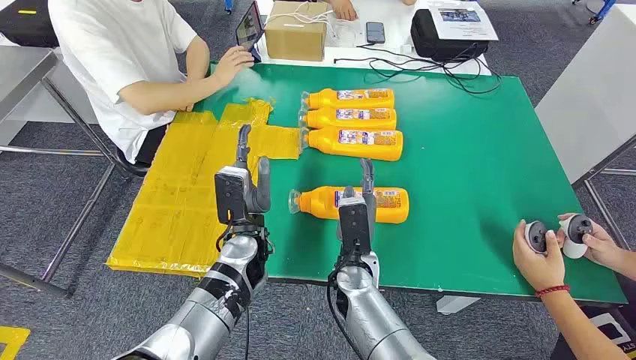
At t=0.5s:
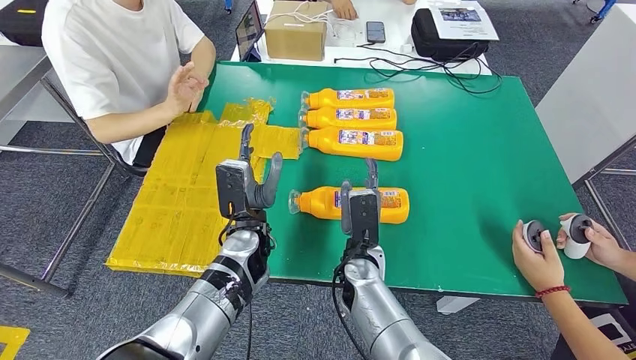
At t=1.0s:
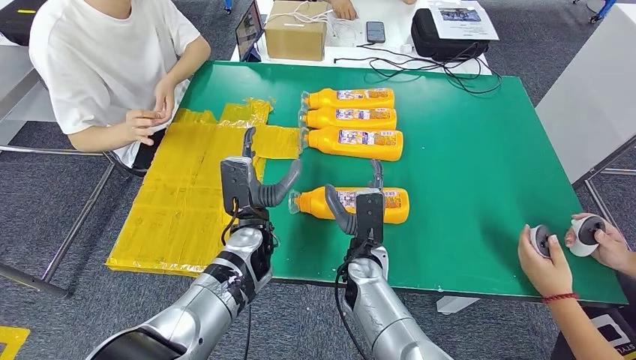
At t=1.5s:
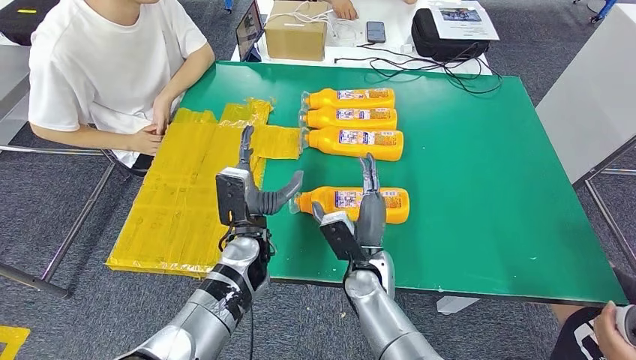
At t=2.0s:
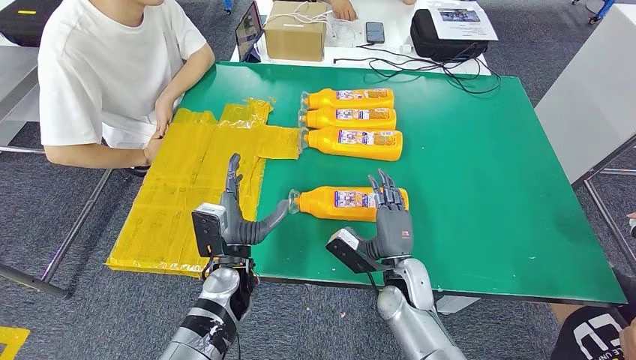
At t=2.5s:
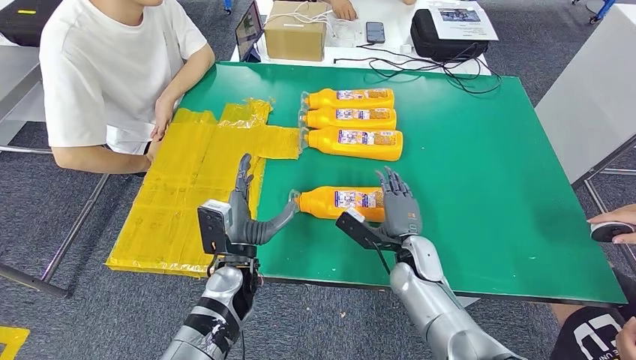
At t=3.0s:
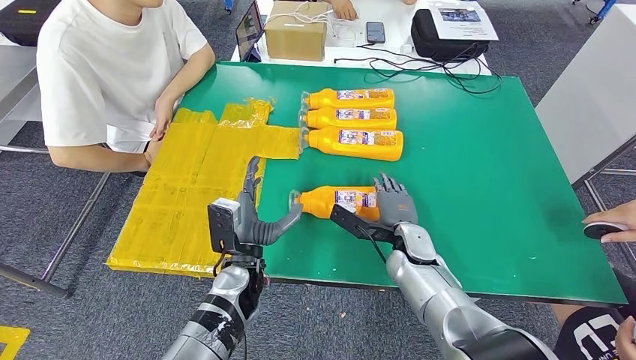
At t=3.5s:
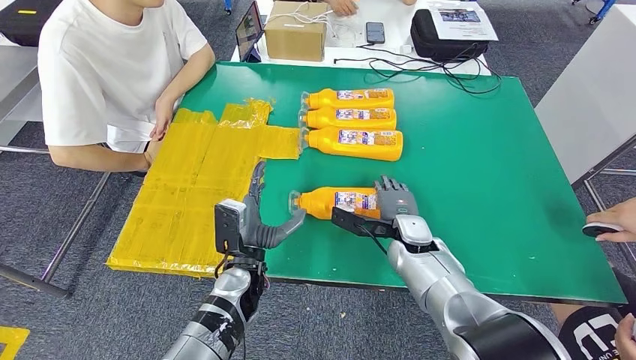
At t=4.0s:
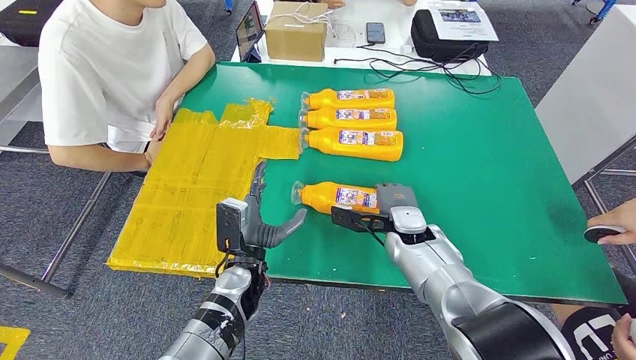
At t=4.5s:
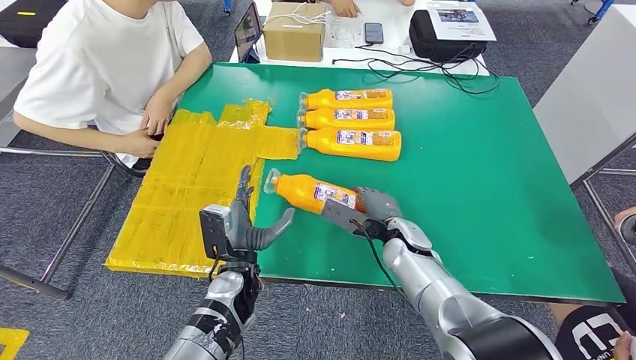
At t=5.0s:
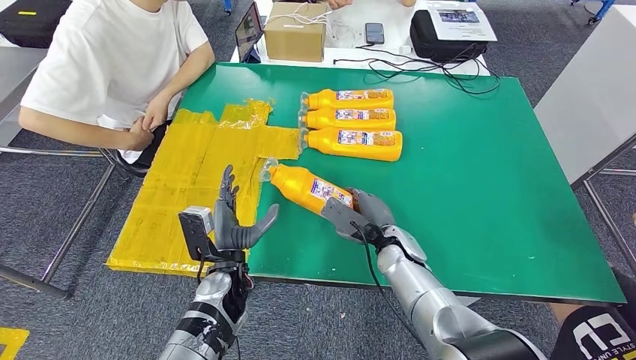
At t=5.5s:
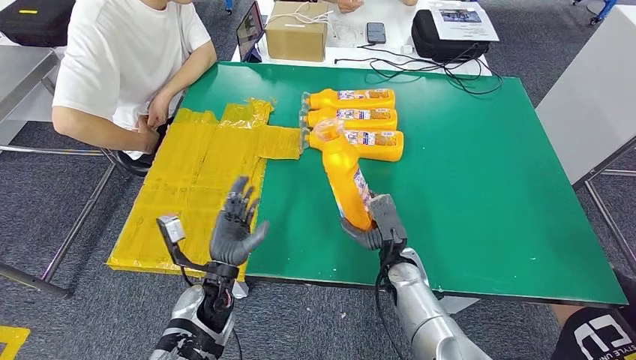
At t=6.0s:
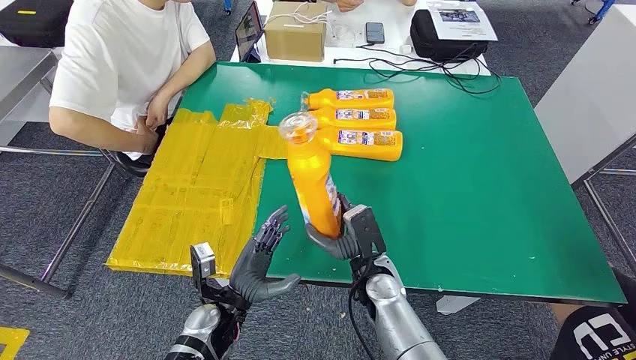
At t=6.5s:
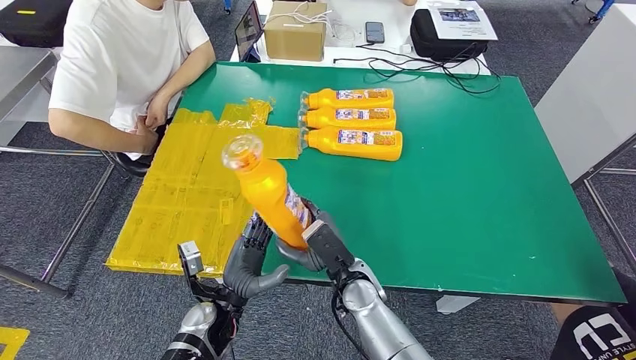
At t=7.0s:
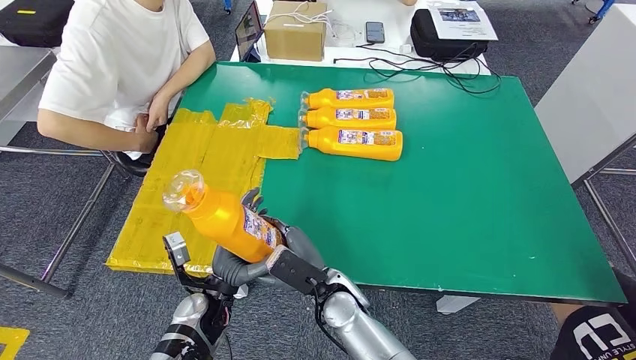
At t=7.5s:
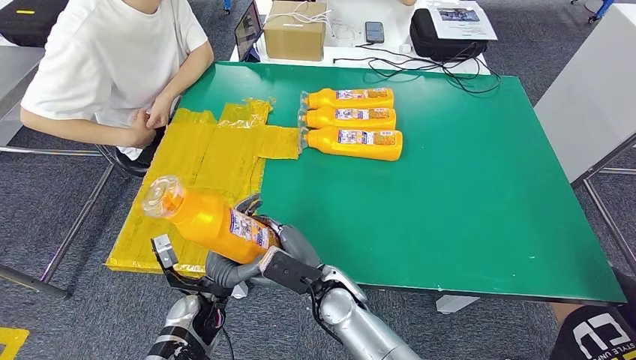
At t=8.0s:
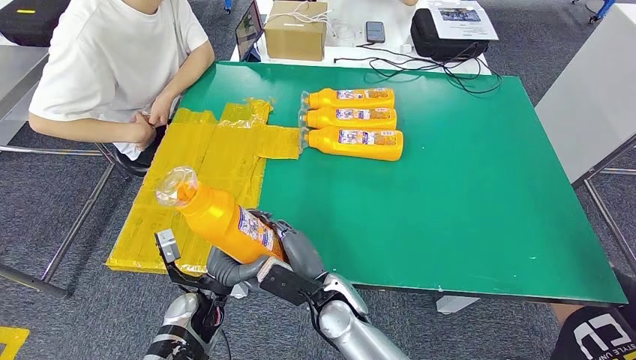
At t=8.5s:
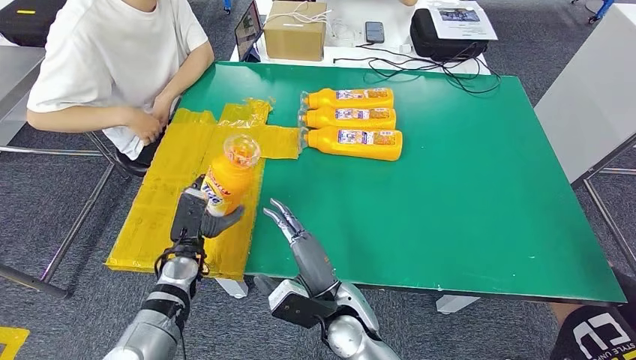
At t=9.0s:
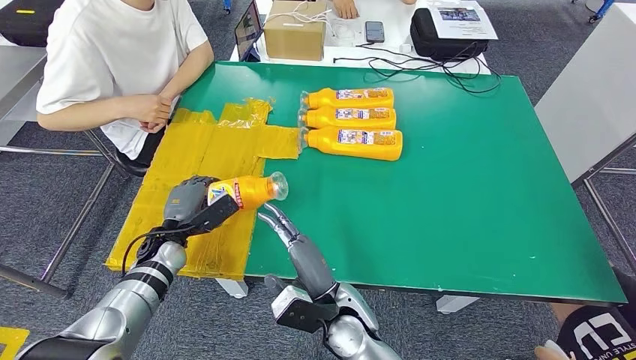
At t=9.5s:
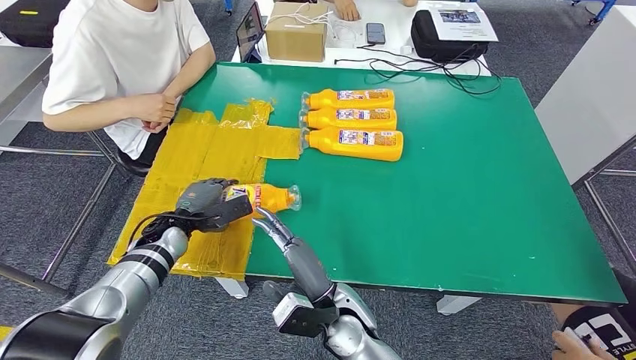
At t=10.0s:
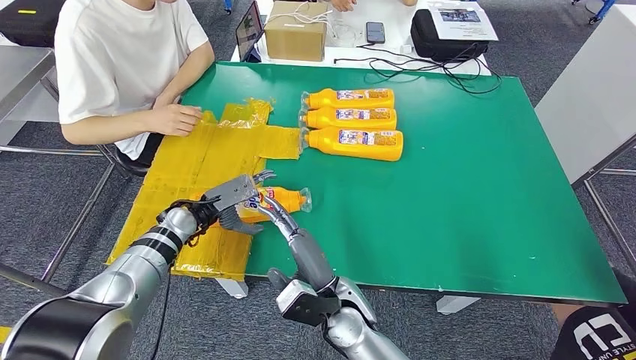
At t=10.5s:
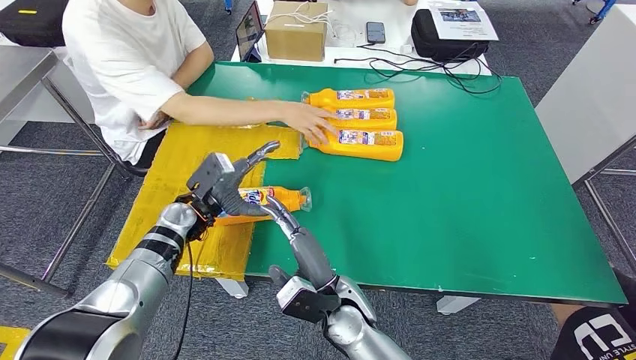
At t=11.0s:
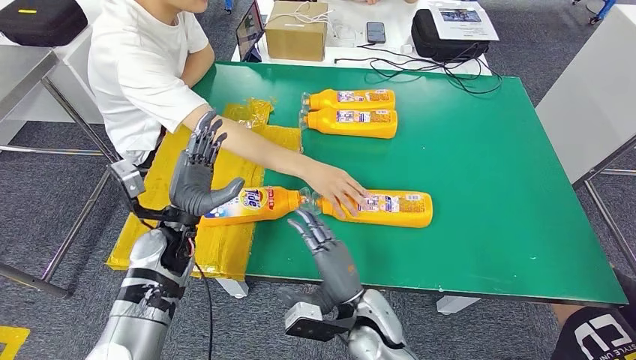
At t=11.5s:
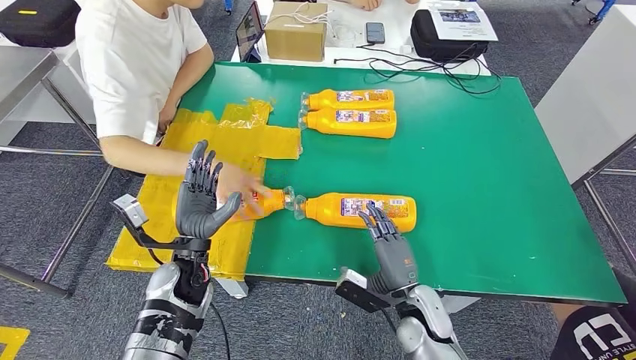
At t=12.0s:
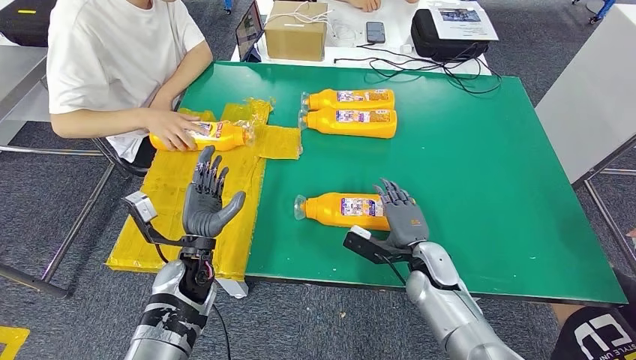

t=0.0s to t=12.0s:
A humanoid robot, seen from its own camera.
Step, t=0.0s to t=5.5s: Take the fast-moving consumer goods bottle from the table.
Step, t=7.0s to t=10.5s: Flip the fast-moving consumer goods bottle to the front side.
t=2.0s to t=4.0s: The right hand travels forward by roughly 10 cm.
t=8.0s to t=10.0s: The left hand heads forward and to the left, covering roughly 15 cm.

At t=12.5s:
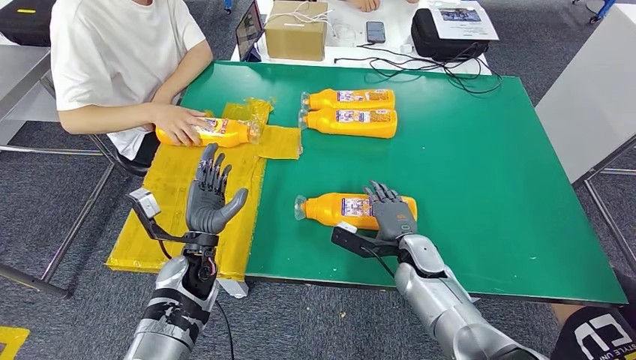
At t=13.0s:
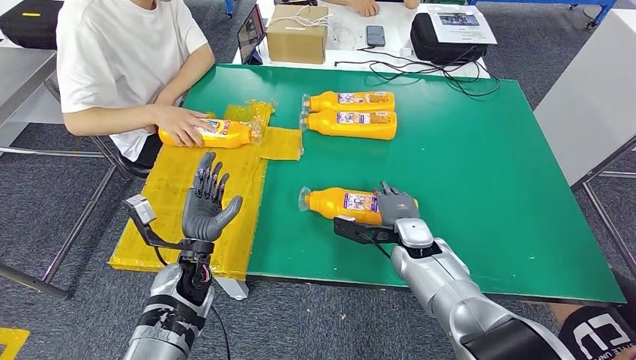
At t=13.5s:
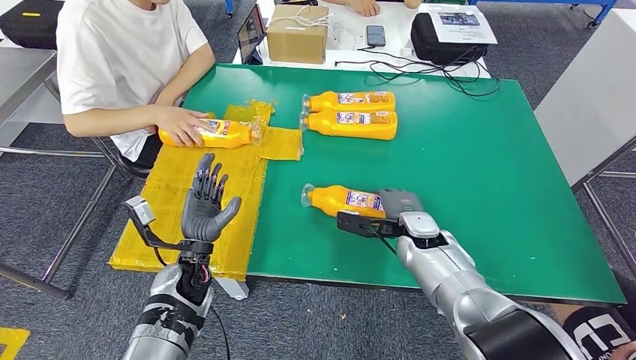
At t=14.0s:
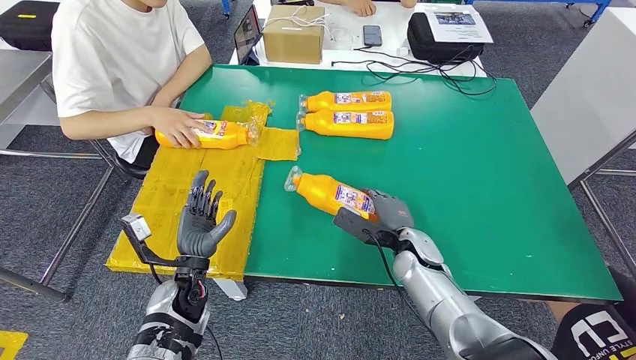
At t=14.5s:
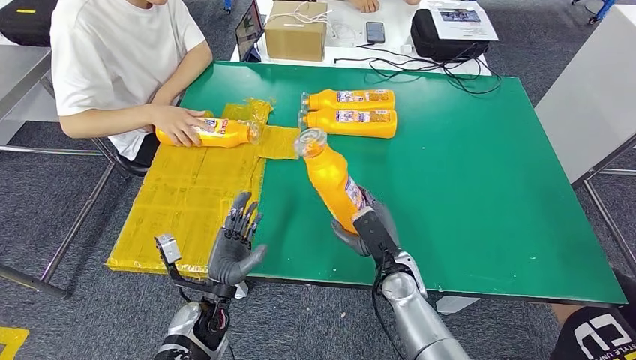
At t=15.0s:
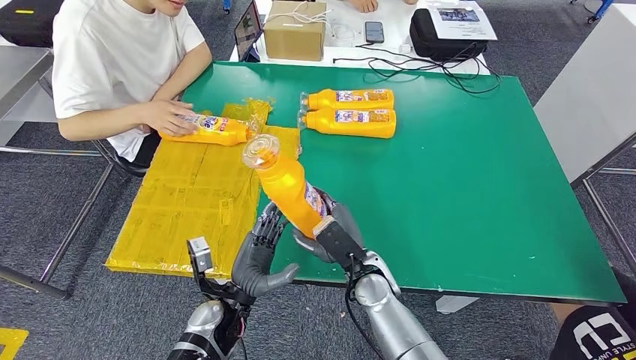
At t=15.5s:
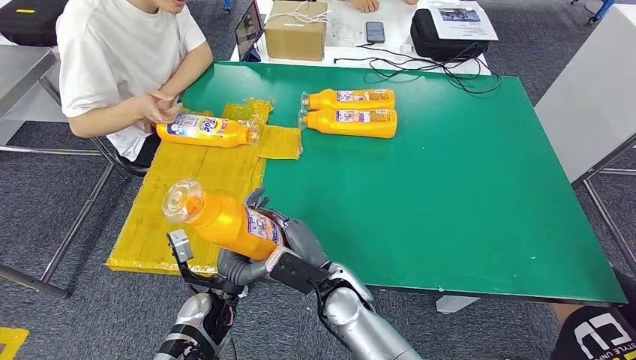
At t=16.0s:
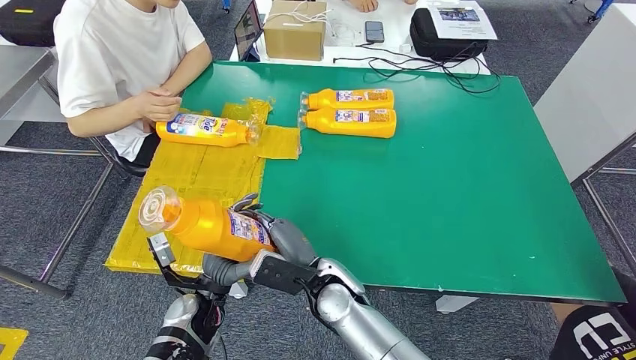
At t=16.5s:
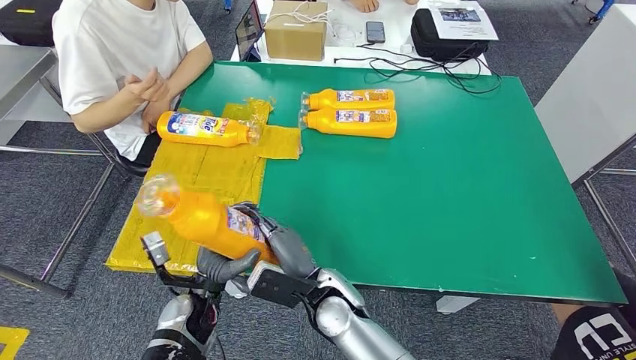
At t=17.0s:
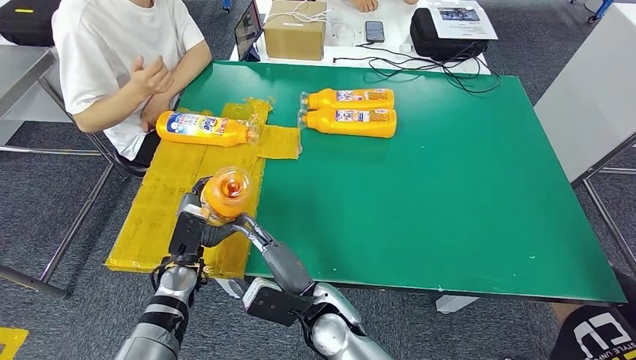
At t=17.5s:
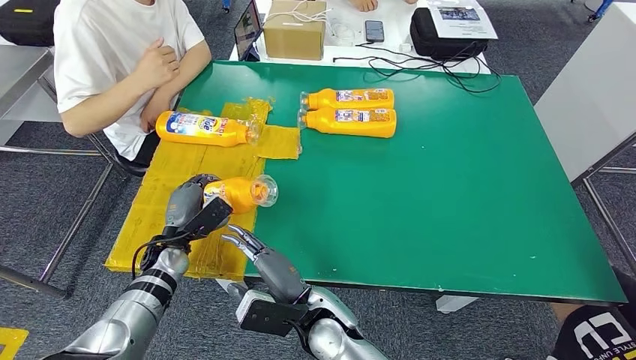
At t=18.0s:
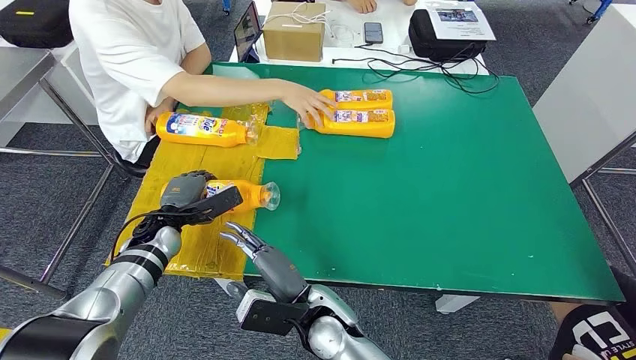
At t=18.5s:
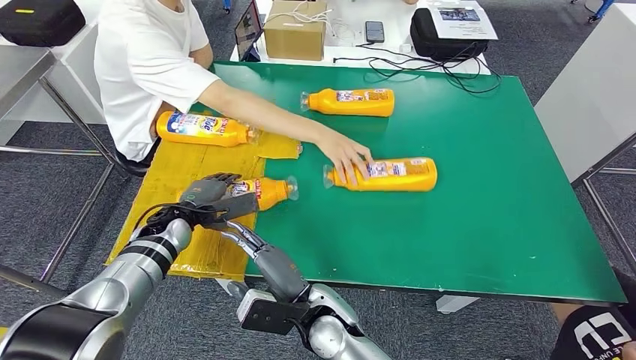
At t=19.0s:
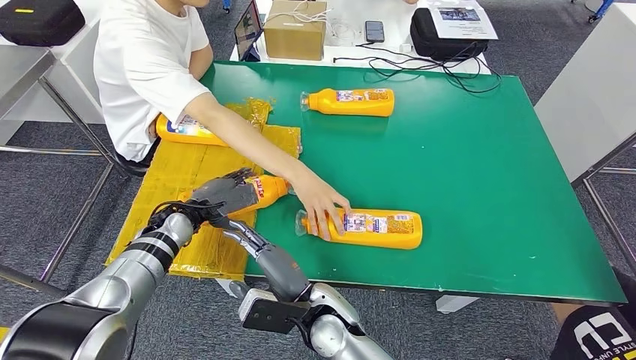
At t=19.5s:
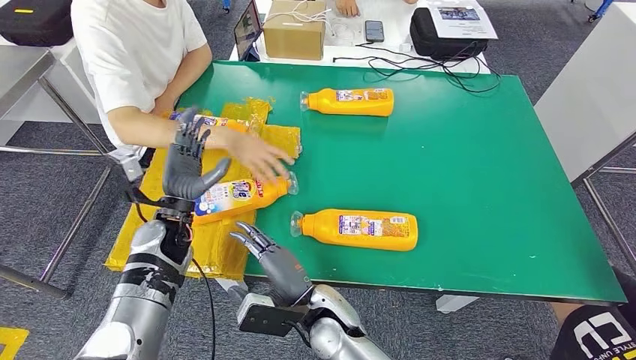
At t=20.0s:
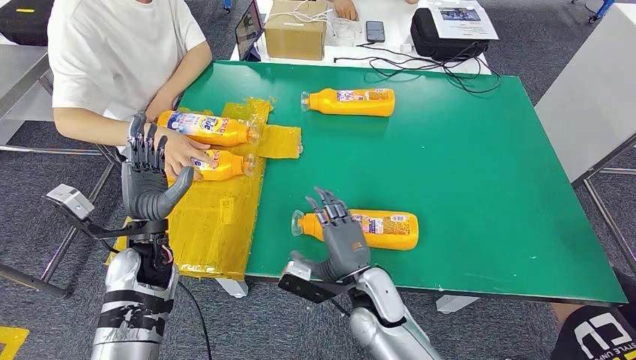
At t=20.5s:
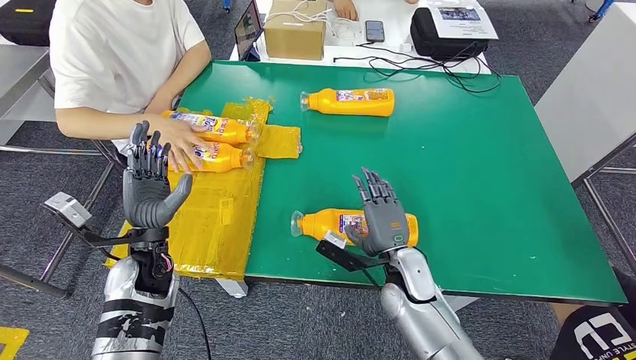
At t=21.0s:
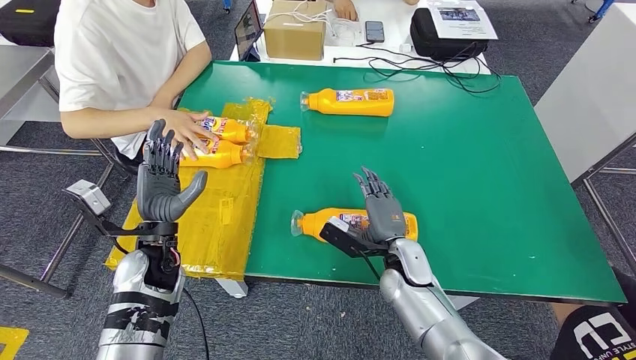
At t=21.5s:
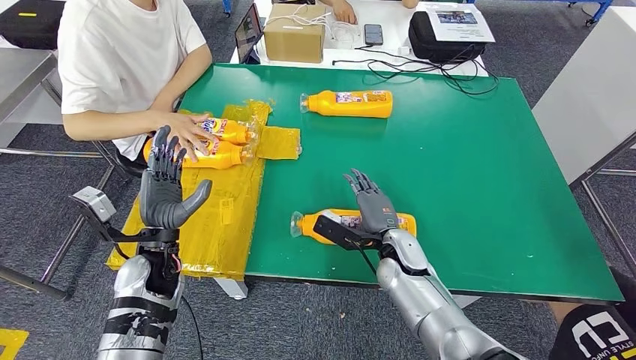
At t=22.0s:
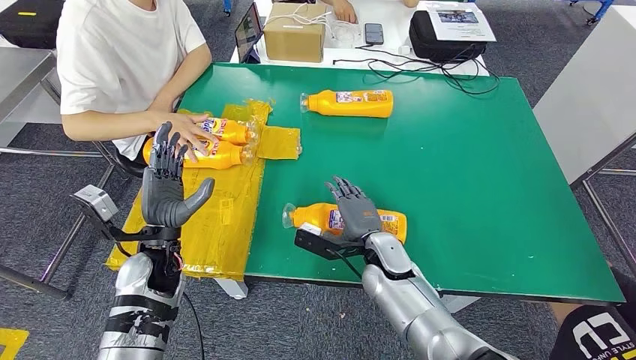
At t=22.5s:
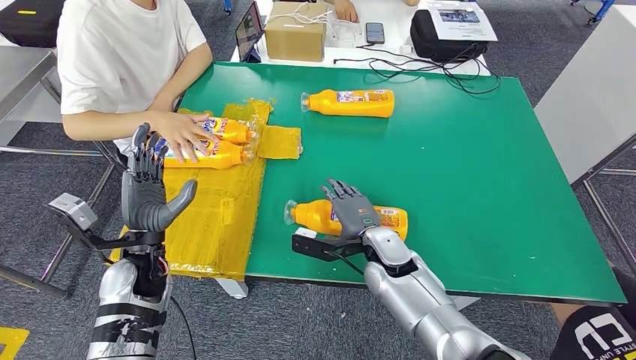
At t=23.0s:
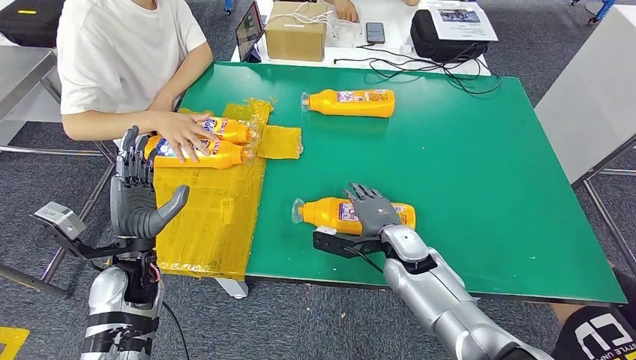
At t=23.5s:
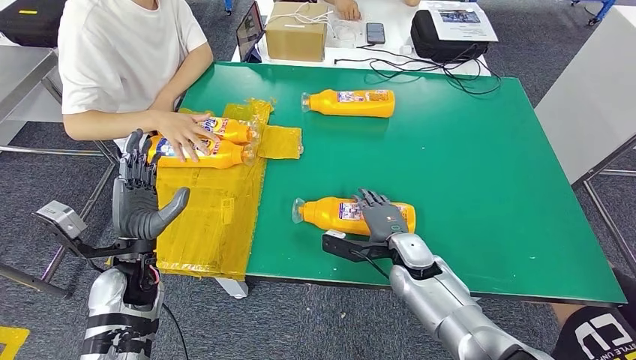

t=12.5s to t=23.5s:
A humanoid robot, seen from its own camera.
Step, t=12.5s to t=14.5s: Pick up the fast-moving consumer goods bottle from the table.
Step, t=15.0s to t=20.0s: Flip the fast-moving consumer goods bottle to the front side.
t=12.5s to t=14.5s: The right hand shifts by some 5 cm. The left hand travels backward and downward by roughly 10 cm.
t=14.5s to t=16.0s: The right hand moves to the left, approximately 15 cm.
